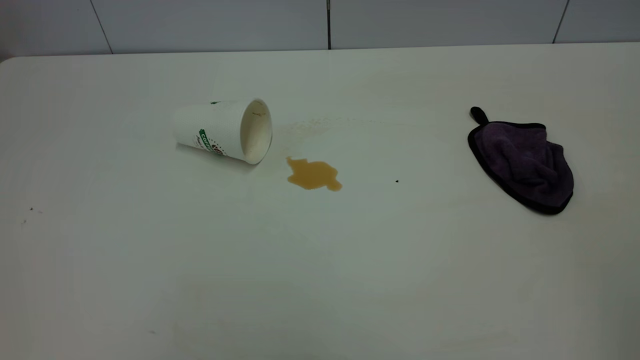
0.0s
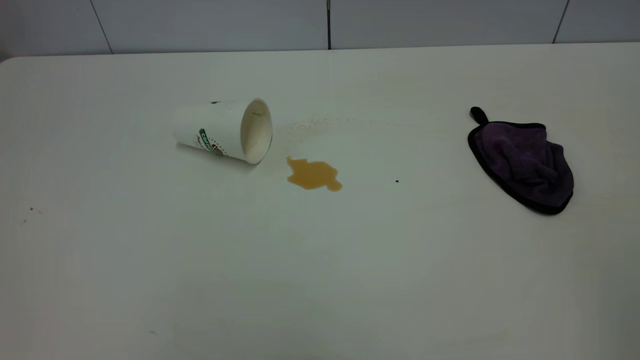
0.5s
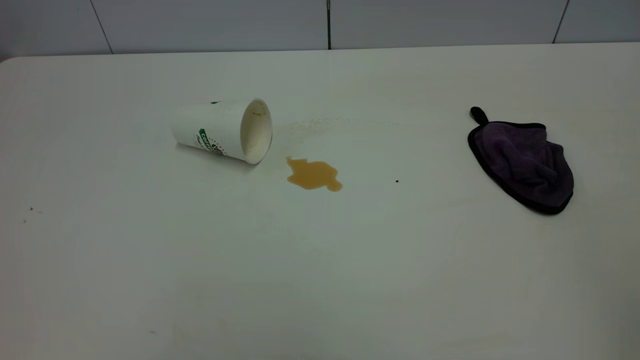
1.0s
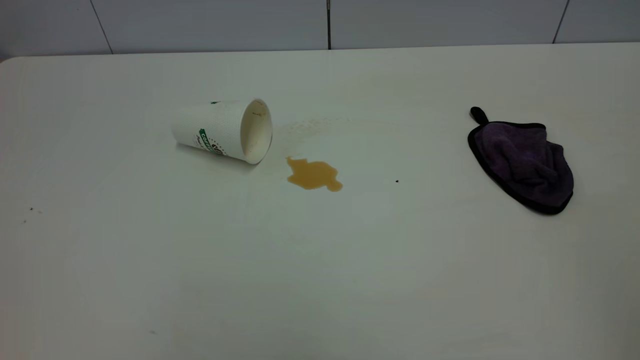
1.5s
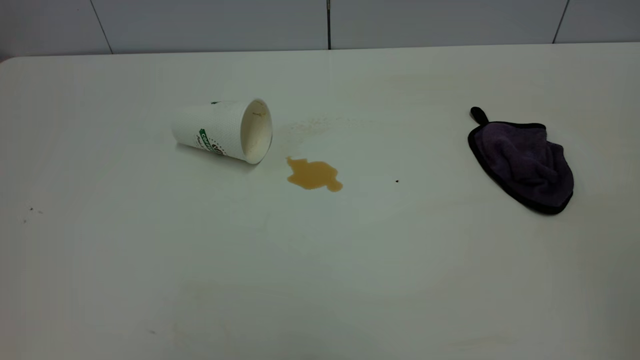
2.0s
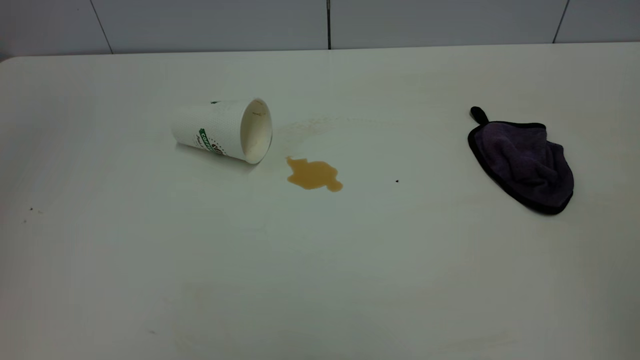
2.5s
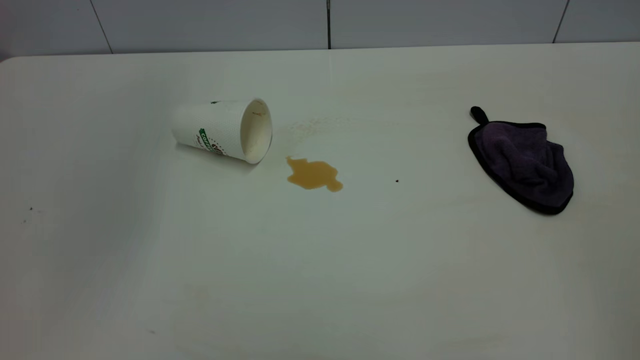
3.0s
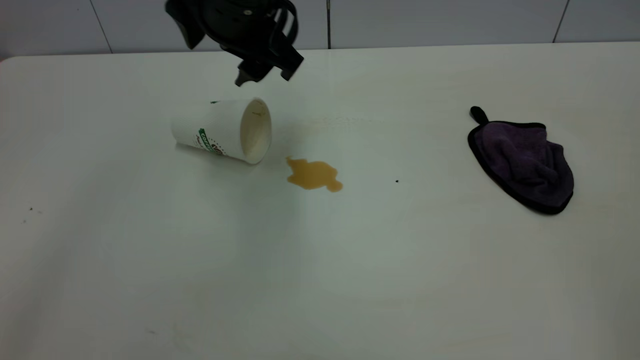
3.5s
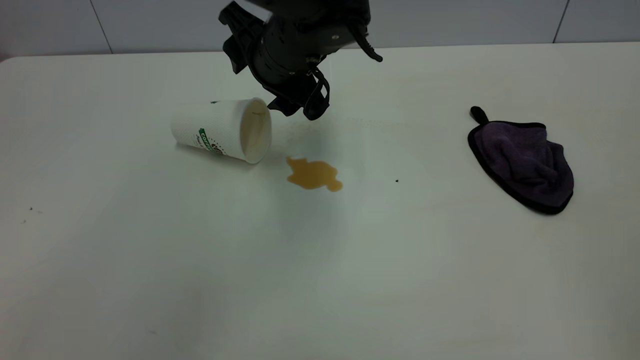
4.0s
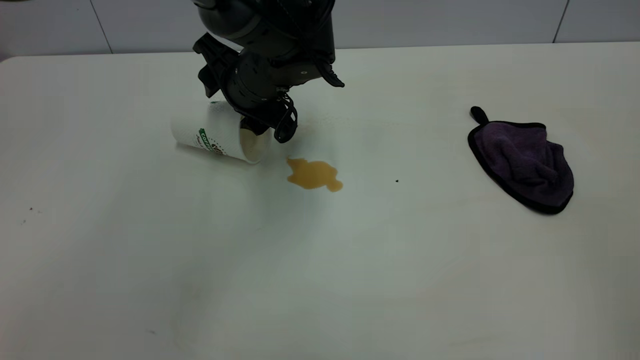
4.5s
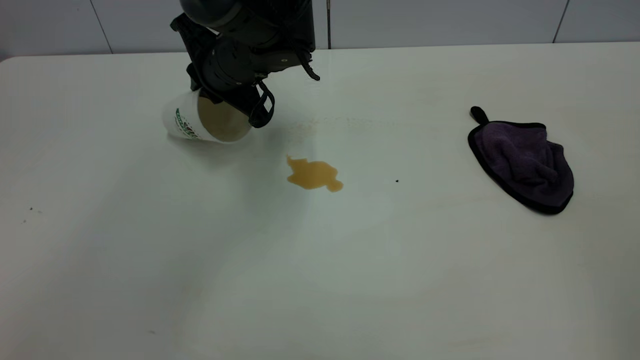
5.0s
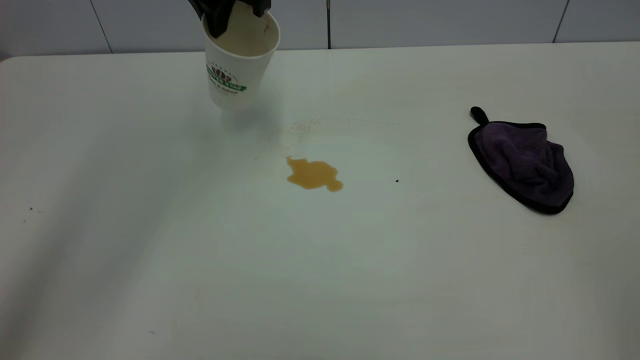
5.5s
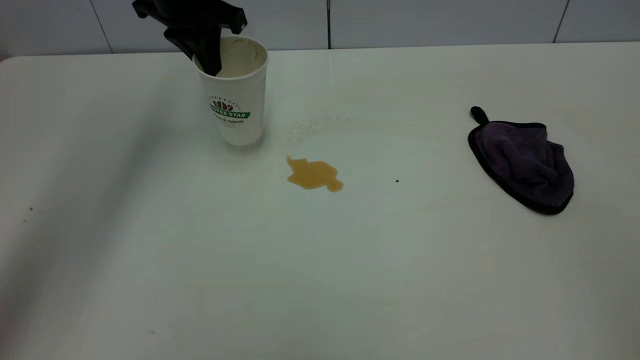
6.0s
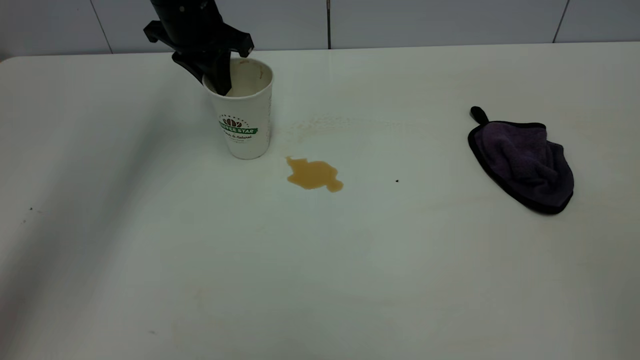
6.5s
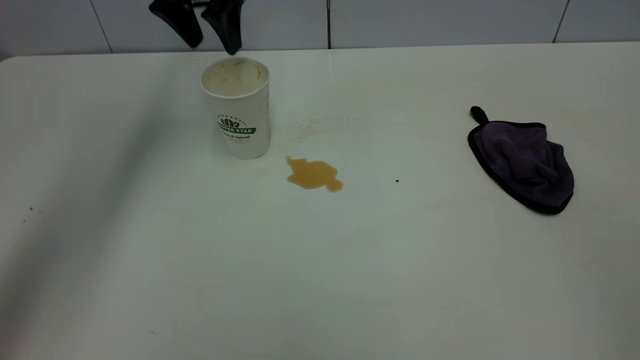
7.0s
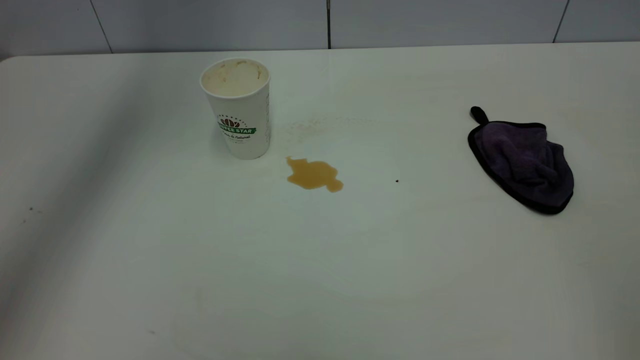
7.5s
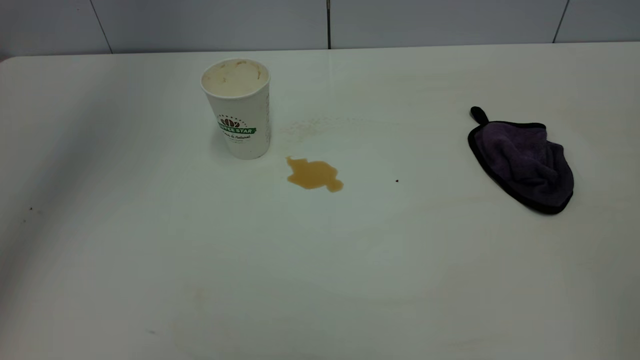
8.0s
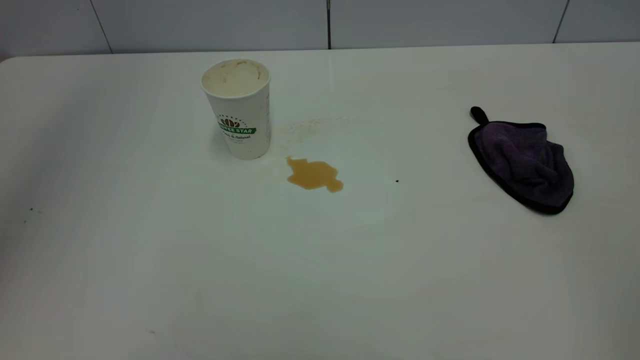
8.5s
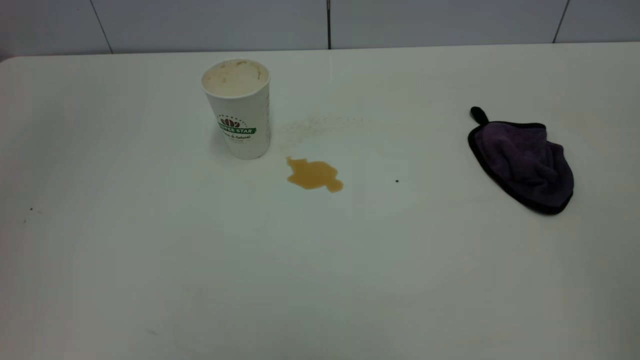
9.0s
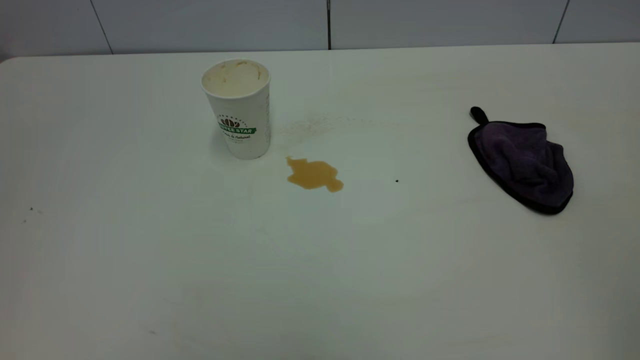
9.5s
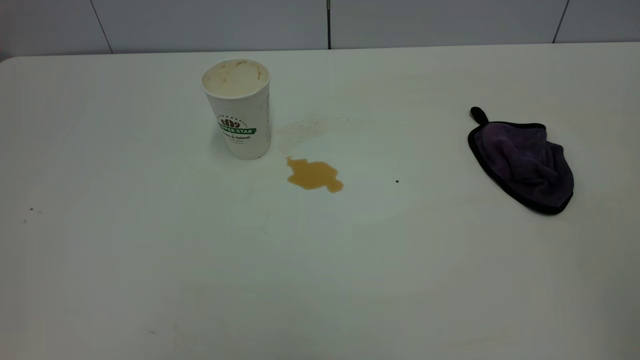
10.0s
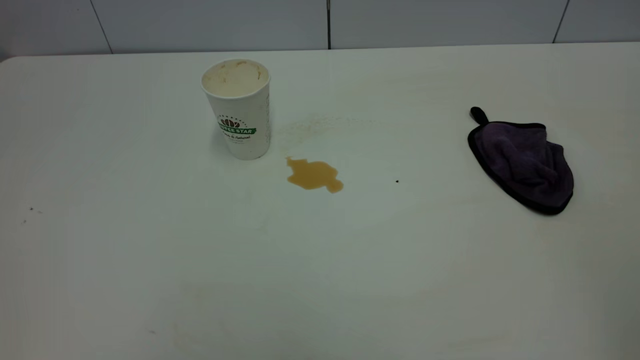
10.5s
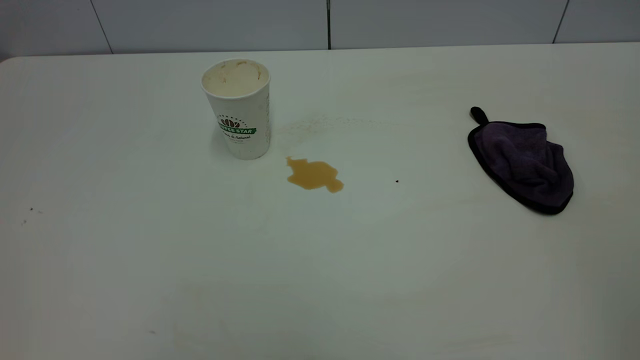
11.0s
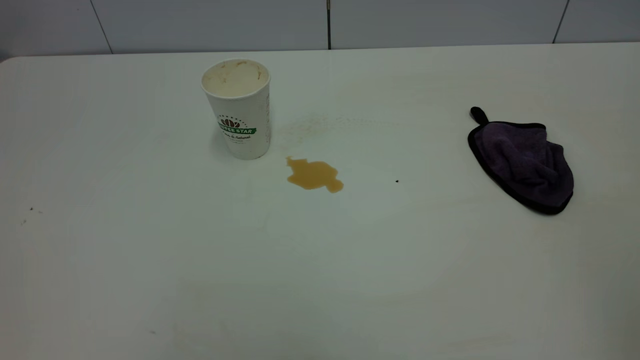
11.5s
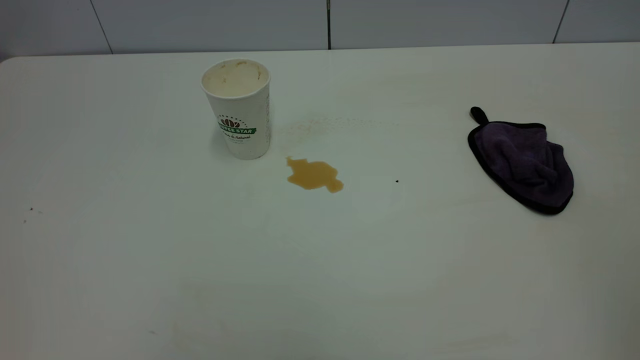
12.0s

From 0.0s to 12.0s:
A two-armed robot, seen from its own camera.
Task of the whole recording: the left gripper pick up the fallen cup and place it upright, the right gripper grasp the purple rag and wipe the tea stain on the table, the right gripper put the purple rag back in its original position.
Step, from 0.0s to 7.0s: Stand the paper cup upright.
From 2.0s to 4.0s: The left gripper heads forward, to the right and downward, covering roughly 50 cm.
From 4.0s to 6.0s: The left gripper travels to the left and forward by approximately 15 cm, and closes up.
From 6.0s to 8.0s: The left gripper moves upward and backward, approximately 30 cm, and opens up.
From 8.0s to 10.0s: The left gripper shifts about 35 cm backward.

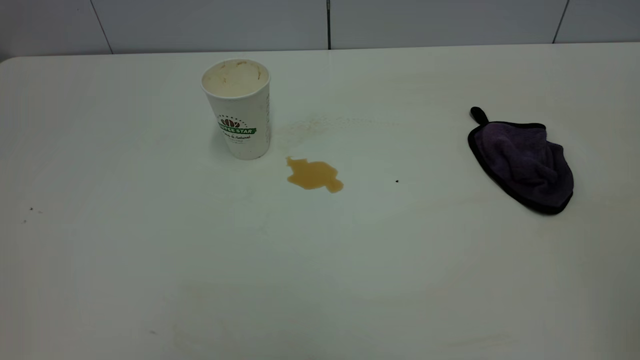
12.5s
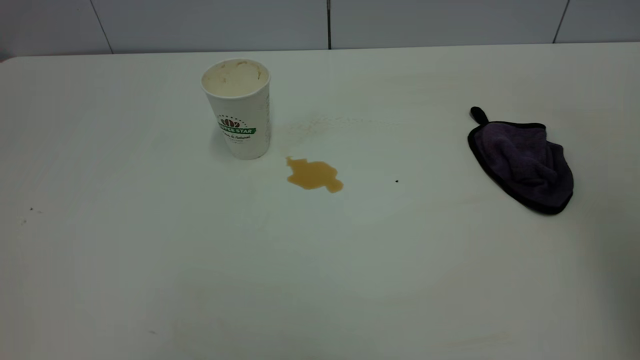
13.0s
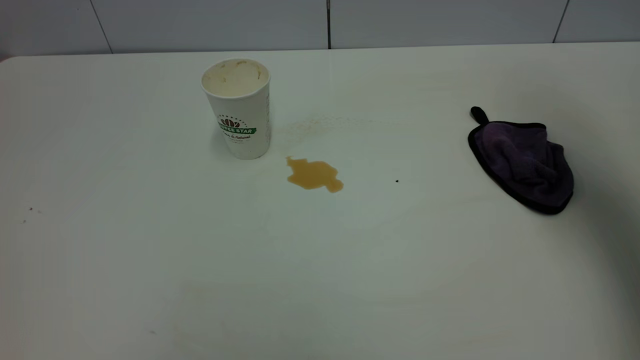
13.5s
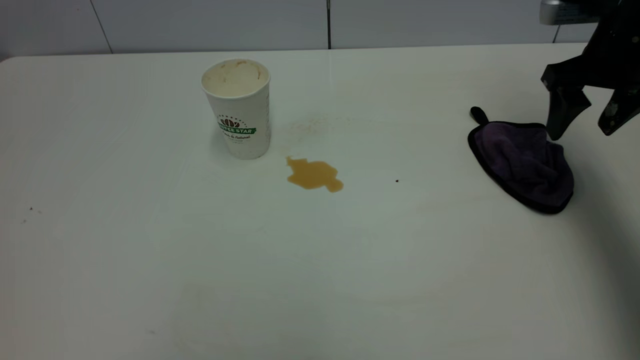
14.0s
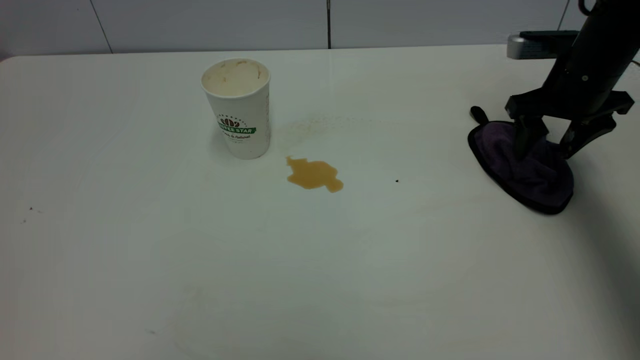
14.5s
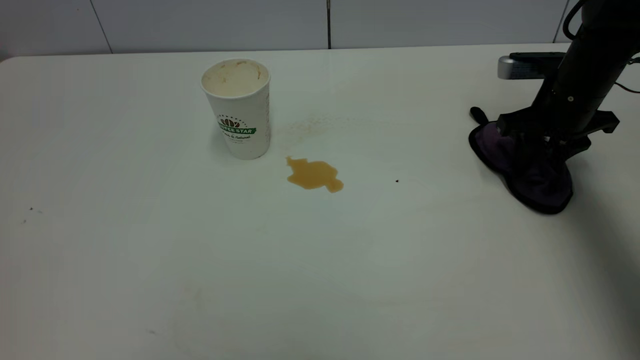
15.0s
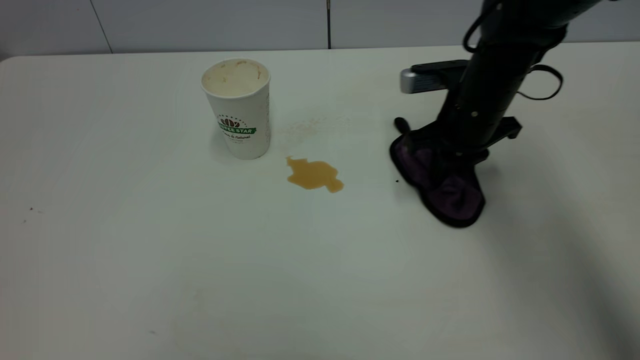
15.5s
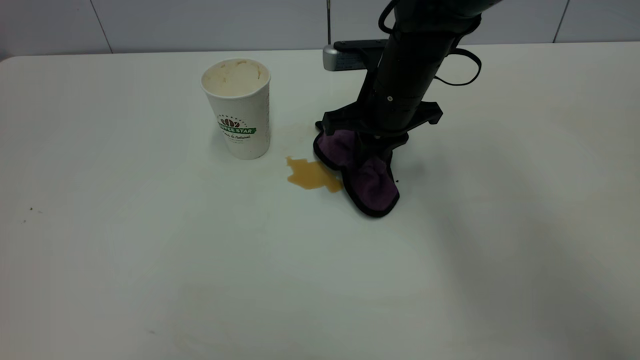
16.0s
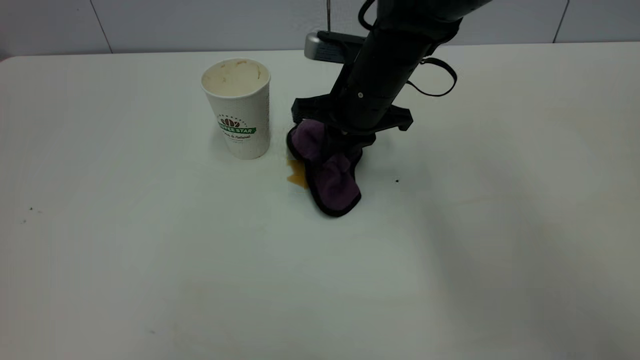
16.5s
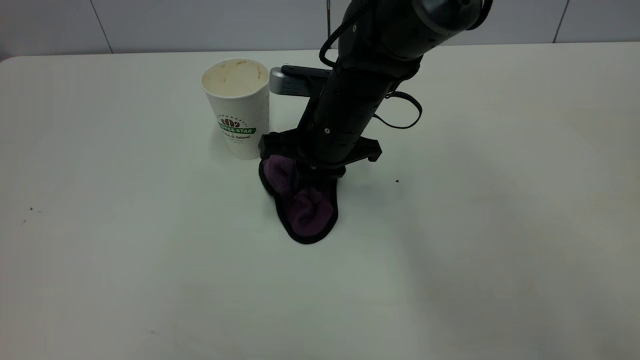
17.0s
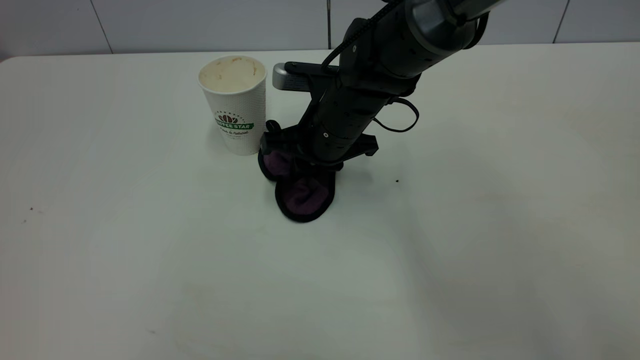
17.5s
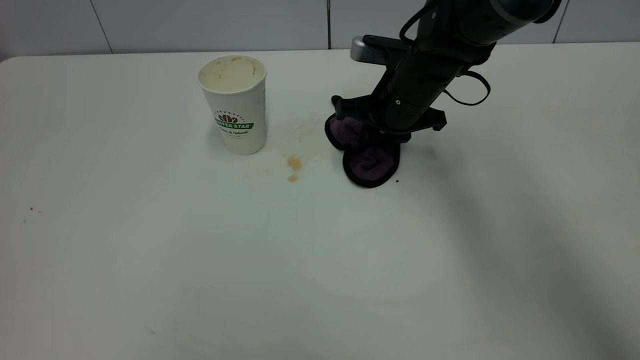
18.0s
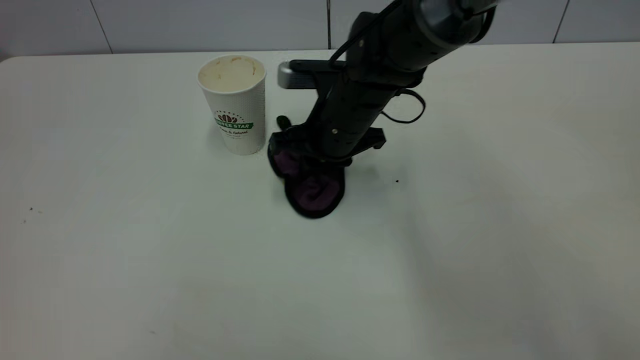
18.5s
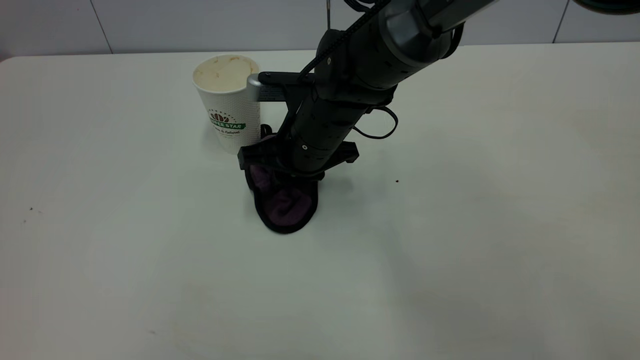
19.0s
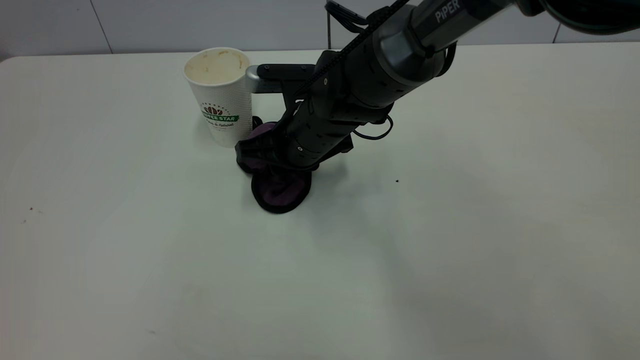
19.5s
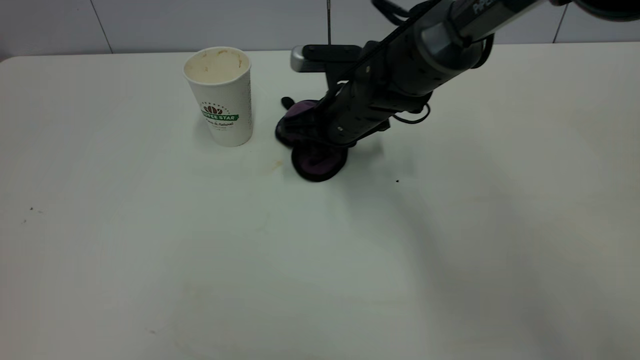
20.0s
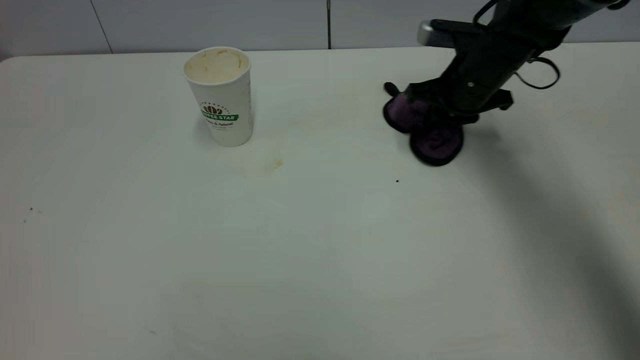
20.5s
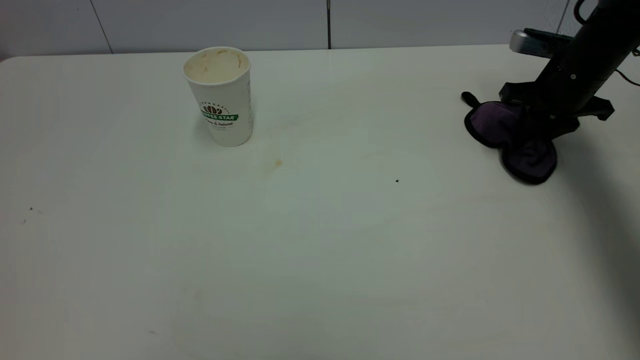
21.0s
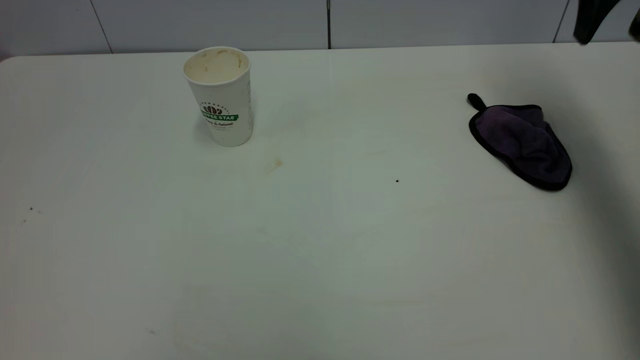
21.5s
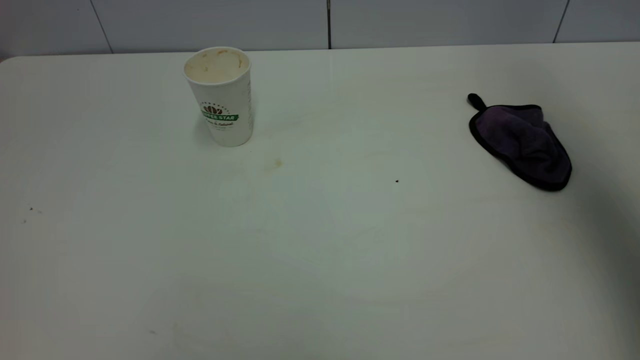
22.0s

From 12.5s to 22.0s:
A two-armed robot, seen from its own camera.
Task of the whole recording: the left gripper pick up the fallen cup and place it upright, the right gripper grasp the purple rag and wipe the tea stain on the table, the right gripper put the purple rag back in its original position.
Step, from 12.5s to 21.0s: Wipe the stains off the table with a rag.
From 12.5s to 14.5s: The right gripper is displaced forward and downward by some 50 cm, and opens its fingers.
From 14.5s to 16.5s: The right gripper shifts roughly 25 cm to the left, and closes its fingers.
From 16.5s to 18.0s: The right gripper goes about 5 cm to the right.
From 18.0s to 20.0s: The right gripper travels to the left by approximately 5 cm.
From 20.0s to 22.0s: The right gripper shifts approximately 50 cm upward and to the right, and opens.
